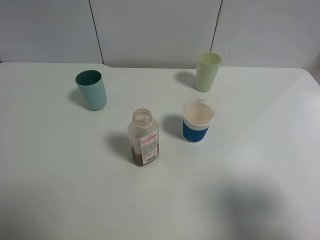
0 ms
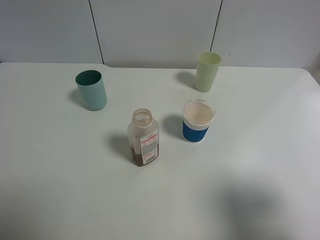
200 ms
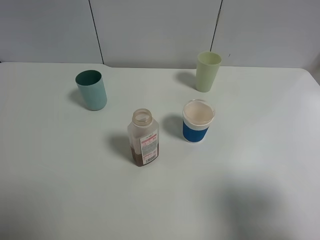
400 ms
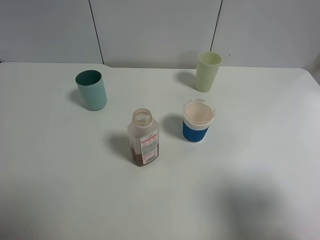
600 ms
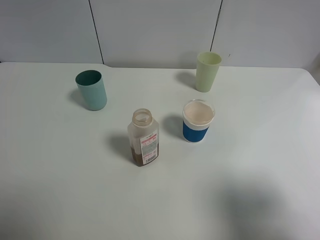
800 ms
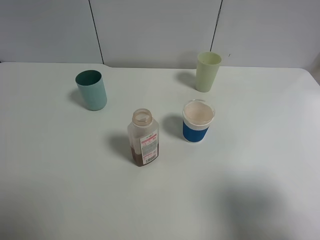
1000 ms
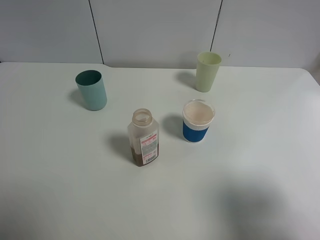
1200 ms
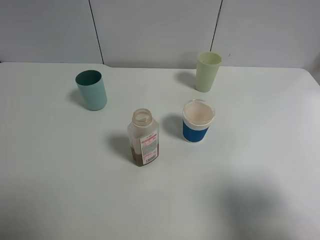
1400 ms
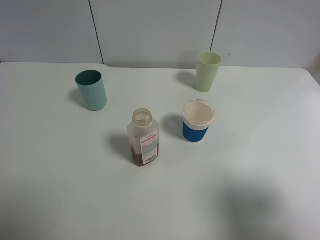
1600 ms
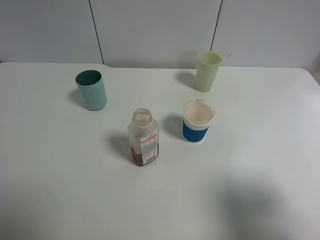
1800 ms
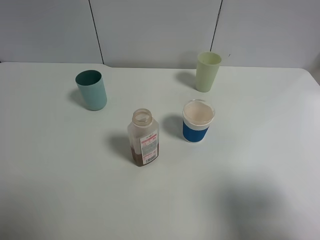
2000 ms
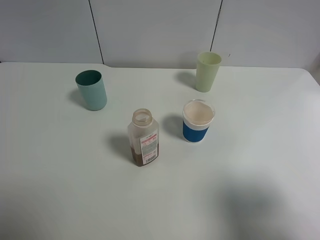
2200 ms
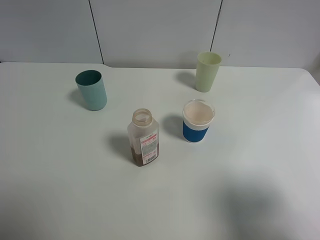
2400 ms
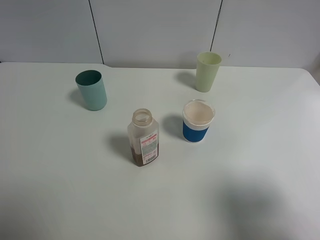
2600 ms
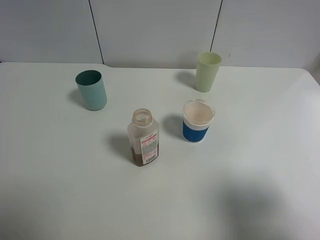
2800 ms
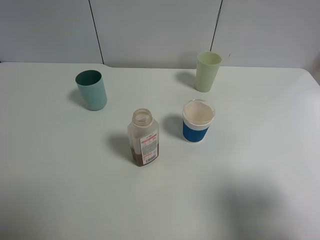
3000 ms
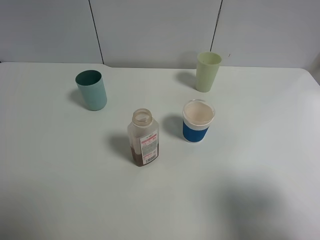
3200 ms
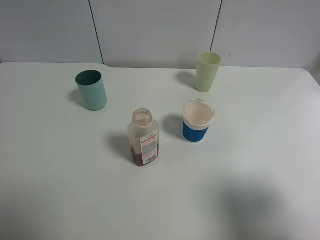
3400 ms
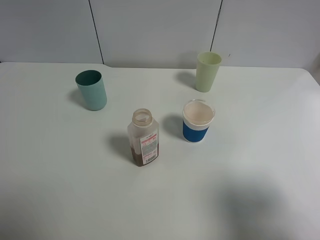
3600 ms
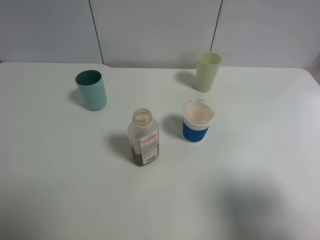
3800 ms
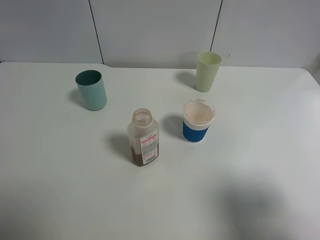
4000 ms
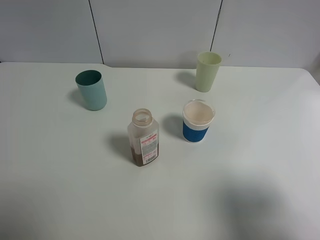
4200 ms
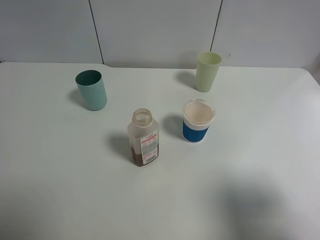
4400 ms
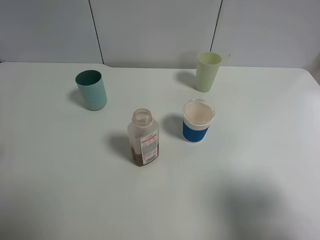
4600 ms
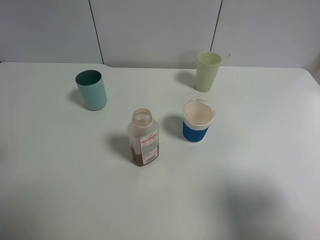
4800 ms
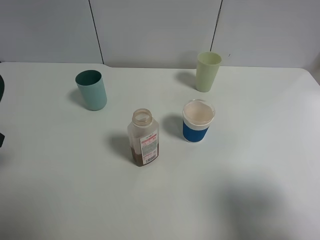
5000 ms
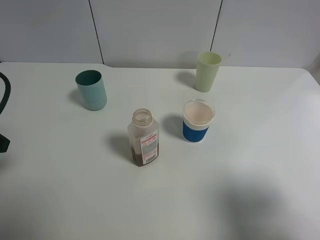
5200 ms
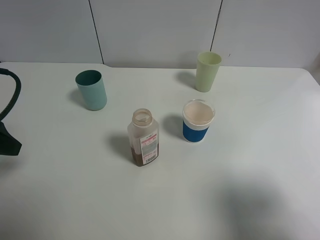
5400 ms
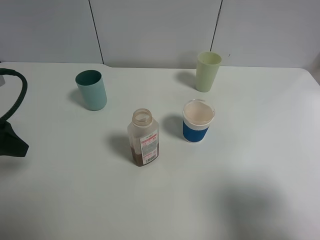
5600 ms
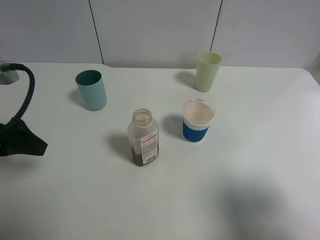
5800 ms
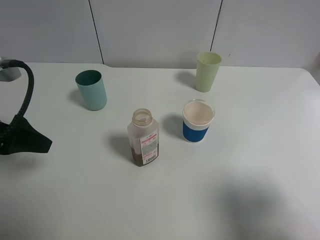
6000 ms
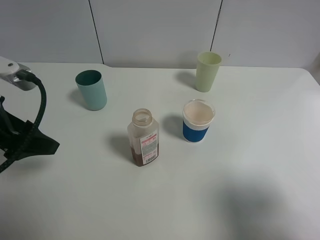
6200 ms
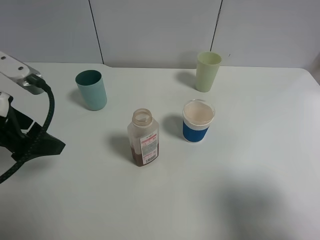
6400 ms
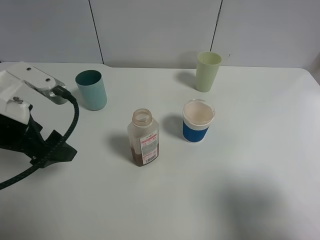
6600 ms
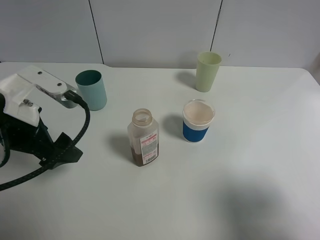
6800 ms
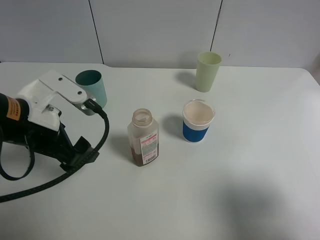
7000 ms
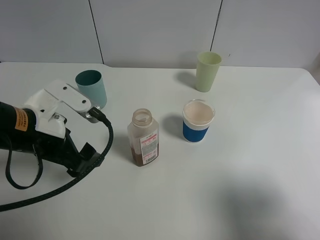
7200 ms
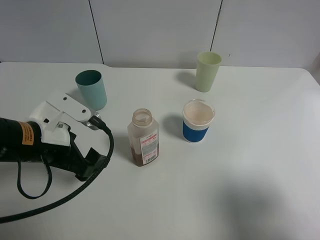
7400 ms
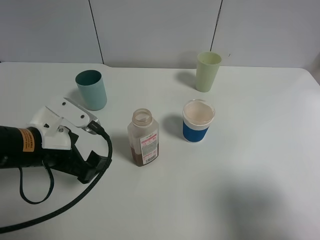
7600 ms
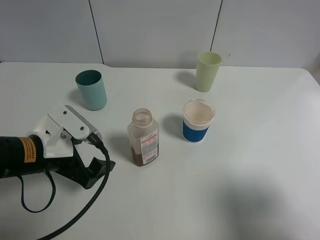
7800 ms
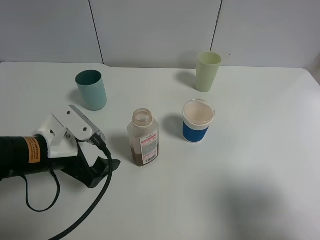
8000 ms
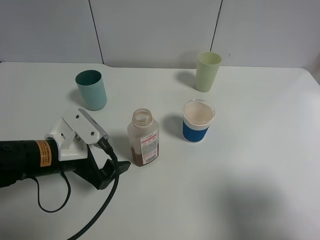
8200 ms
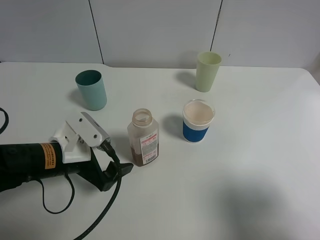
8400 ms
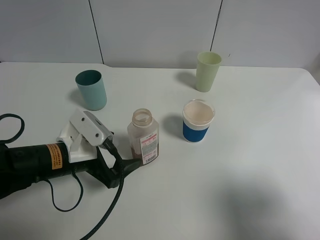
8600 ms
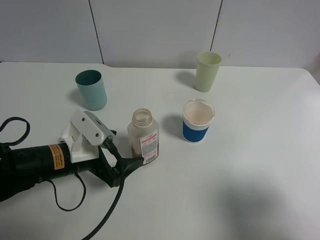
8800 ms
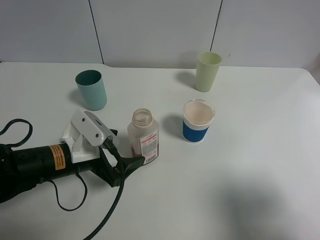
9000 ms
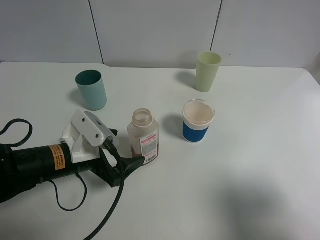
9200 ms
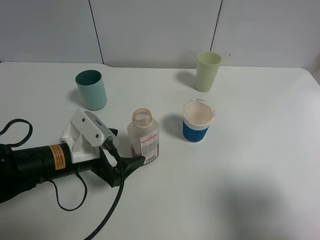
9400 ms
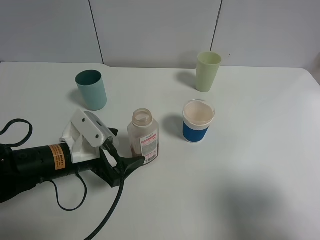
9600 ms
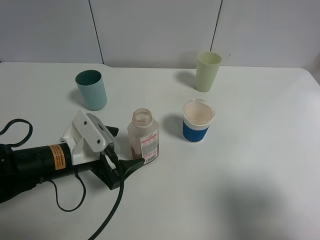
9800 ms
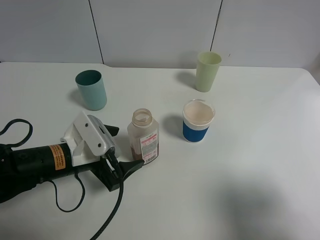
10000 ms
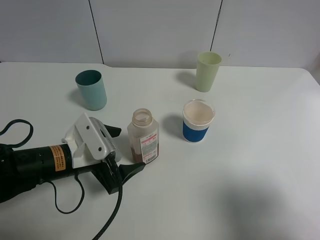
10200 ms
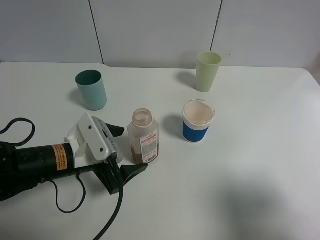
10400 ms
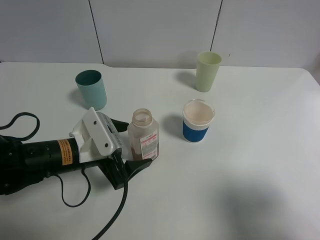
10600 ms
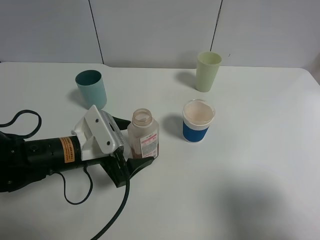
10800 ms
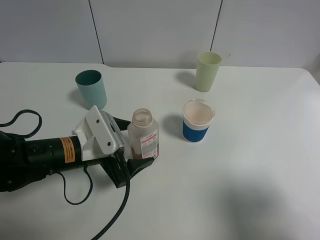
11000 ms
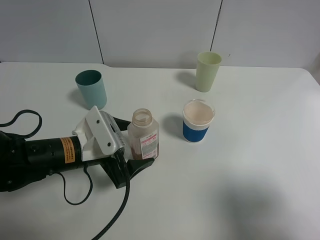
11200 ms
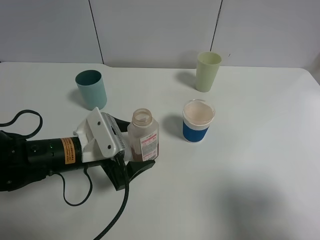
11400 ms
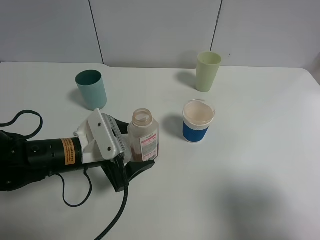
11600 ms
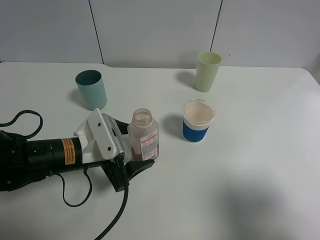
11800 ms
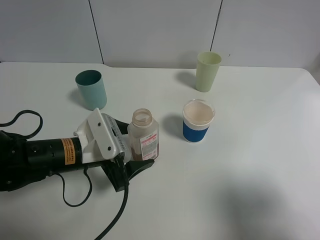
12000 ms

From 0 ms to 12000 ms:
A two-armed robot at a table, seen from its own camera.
Task of the whole recording: use a gripper to hold the bottle of the drink and pour it into a random cup.
From 0 ms to 3000 ms: Both grippers stay about where they are.
From 4400 ms to 6000 ms: The left gripper shifts roughly 10 cm forward and downward.
From 6000 ms to 7600 ms: The left gripper goes about 15 cm to the right and downward.
From 7600 ms to 9000 ms: The left gripper shifts by approximately 5 cm.
From 9000 ms to 12000 ms: There are only small adjustments of the grippers.

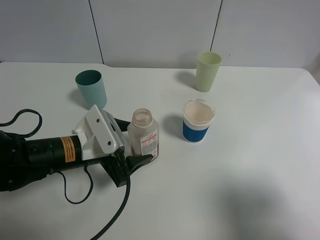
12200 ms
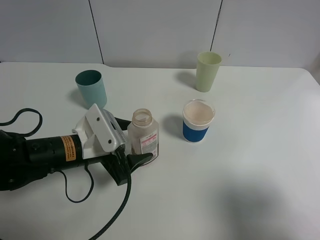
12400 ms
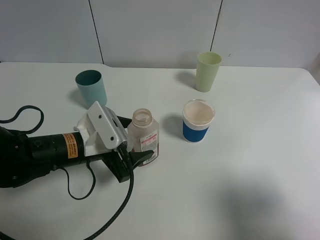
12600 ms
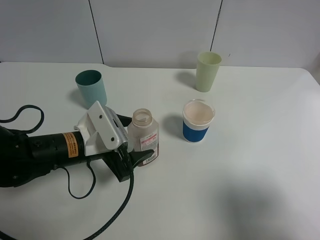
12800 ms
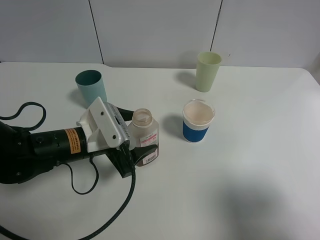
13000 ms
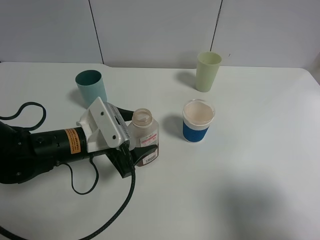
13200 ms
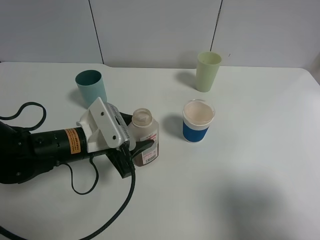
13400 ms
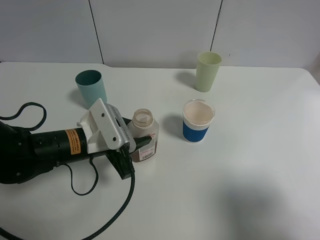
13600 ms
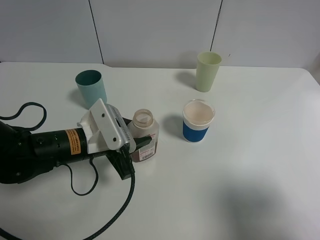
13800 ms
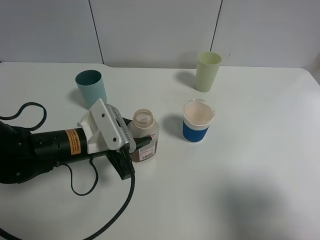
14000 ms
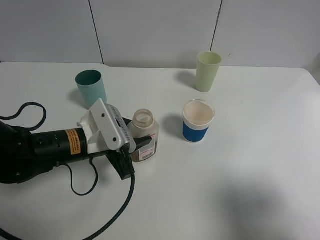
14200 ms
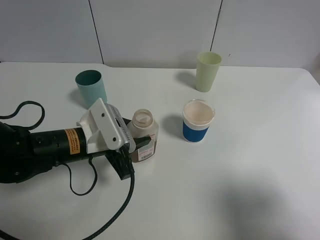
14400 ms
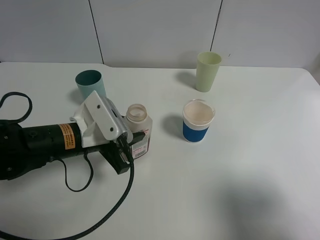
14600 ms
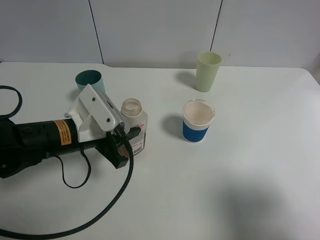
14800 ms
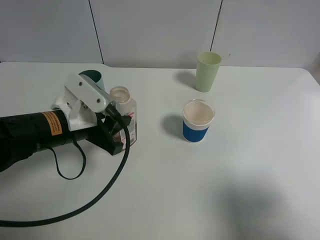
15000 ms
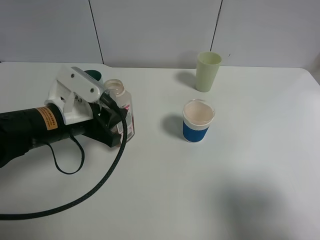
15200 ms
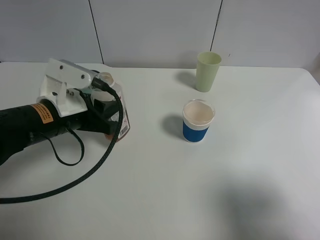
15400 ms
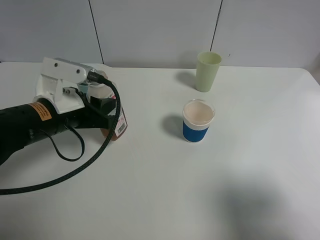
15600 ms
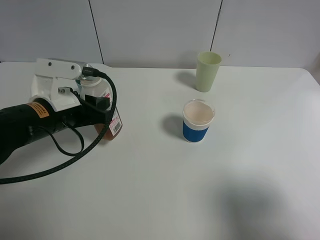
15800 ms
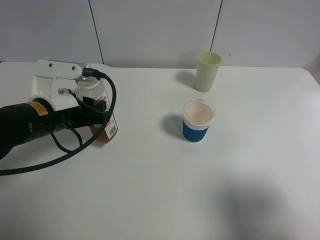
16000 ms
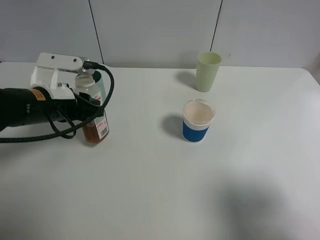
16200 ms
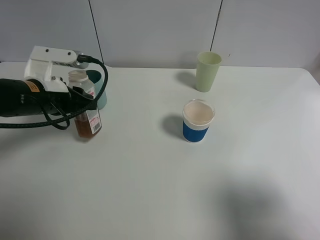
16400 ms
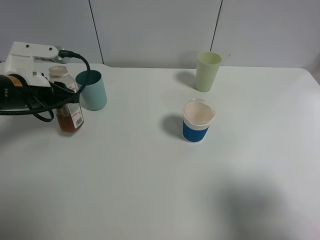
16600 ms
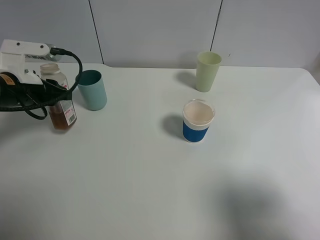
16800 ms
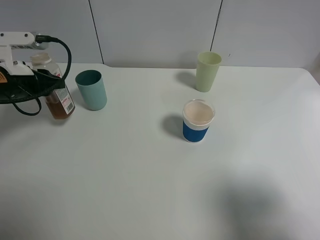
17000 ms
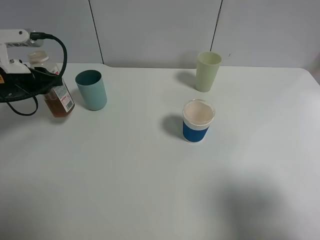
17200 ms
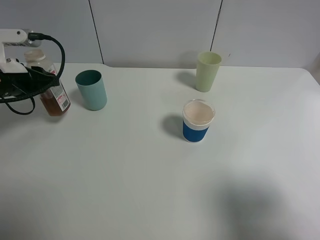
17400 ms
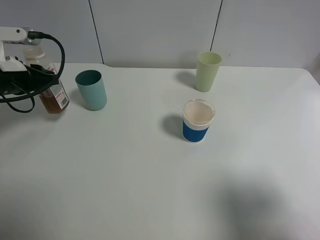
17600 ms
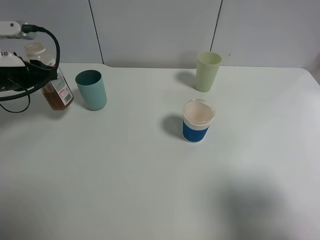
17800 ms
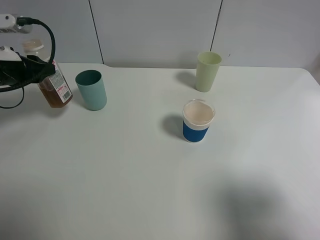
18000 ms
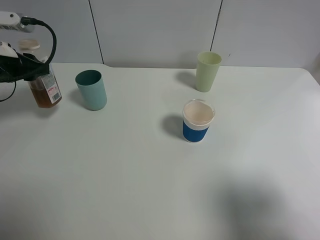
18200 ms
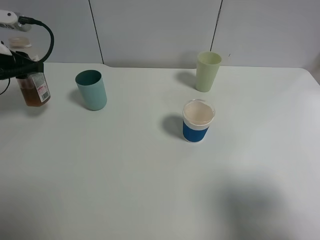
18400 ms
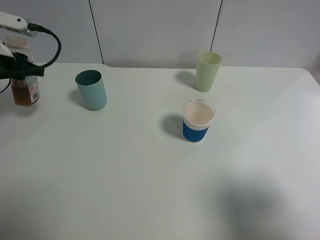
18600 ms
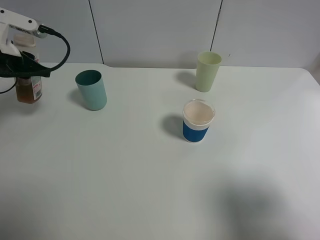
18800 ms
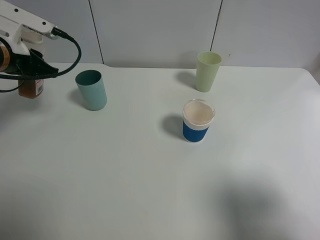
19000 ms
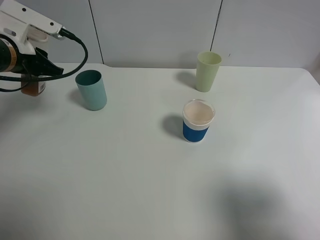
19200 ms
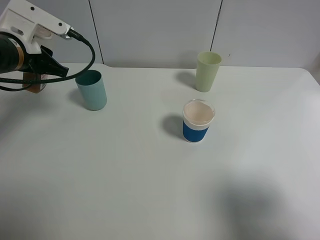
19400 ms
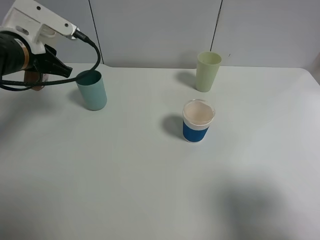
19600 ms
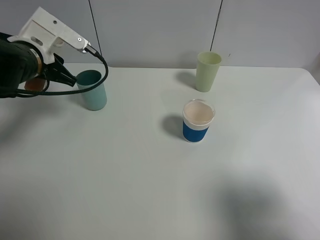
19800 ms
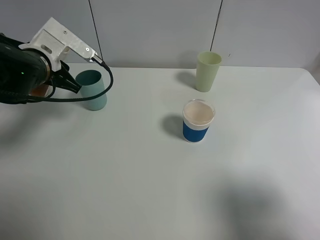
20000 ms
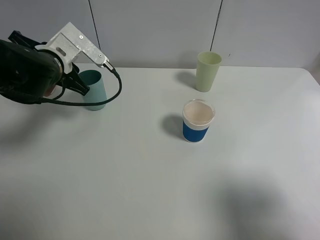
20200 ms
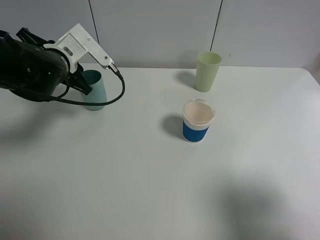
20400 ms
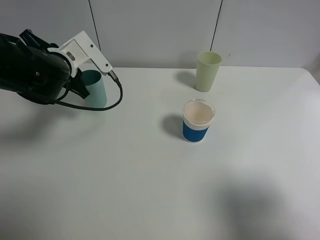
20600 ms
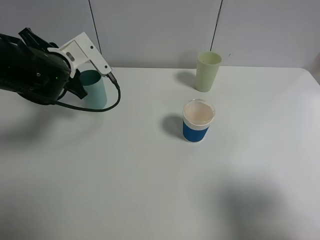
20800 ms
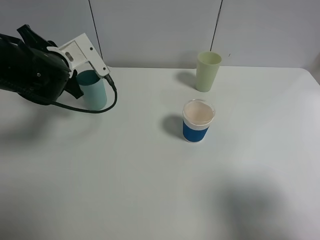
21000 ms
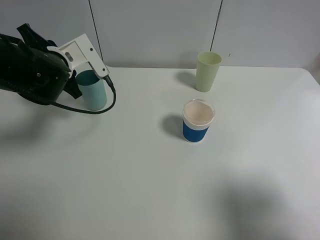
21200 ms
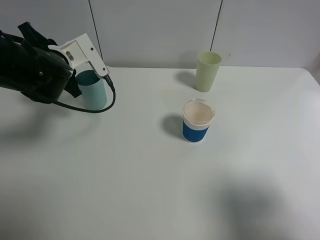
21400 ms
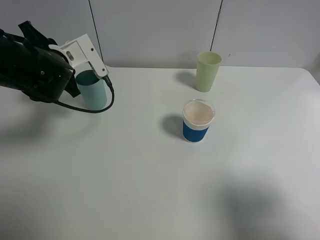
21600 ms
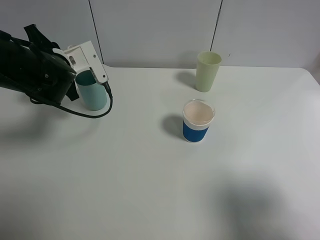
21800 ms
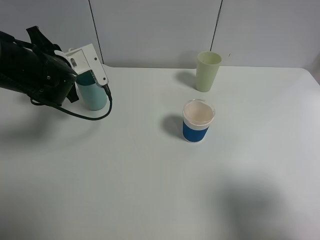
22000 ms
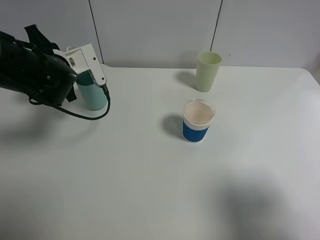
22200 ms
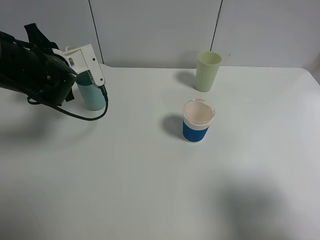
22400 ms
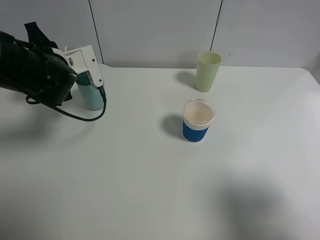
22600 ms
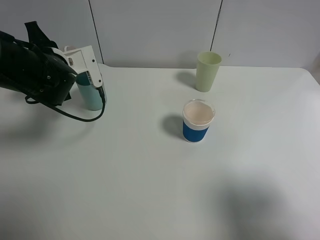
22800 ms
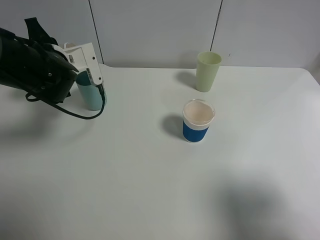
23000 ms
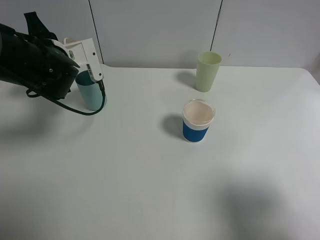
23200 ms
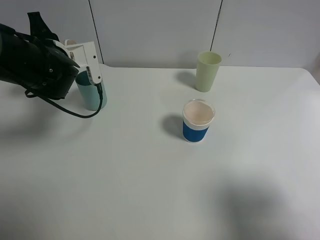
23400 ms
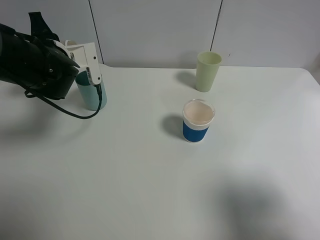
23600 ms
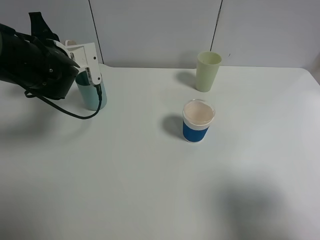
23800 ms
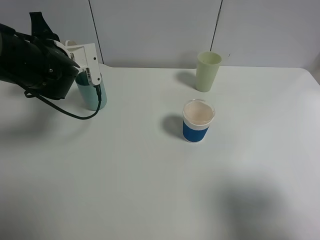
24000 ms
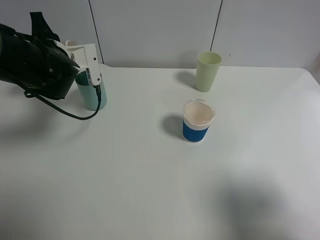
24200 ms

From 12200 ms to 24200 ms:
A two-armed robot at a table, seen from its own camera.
Task of the whole recording: use a gripper to hold the bottle of the drink and pour it into a random cup.
From 12200 ms to 13800 ms: The left gripper closes.
From 13800 ms to 15200 ms: The left gripper goes some 5 cm upward.
From 15200 ms to 16600 ms: The left gripper is displaced to the left and forward by roughly 10 cm.
From 16600 ms to 18200 ms: The left gripper travels to the left by about 5 cm.
From 18200 ms to 19800 ms: The left gripper is displaced to the right by about 10 cm.
From 21200 ms to 22600 ms: There are only small adjustments of the grippers.
From 22600 ms to 24200 ms: There are only small adjustments of the grippers.
